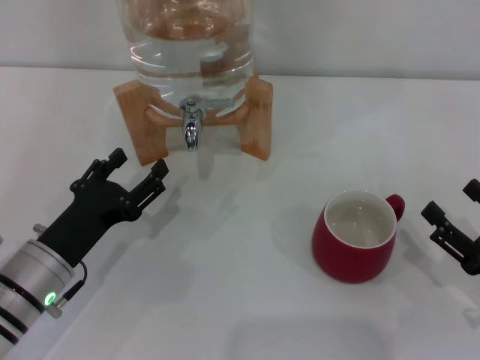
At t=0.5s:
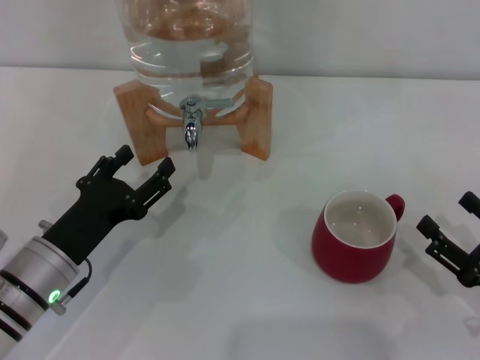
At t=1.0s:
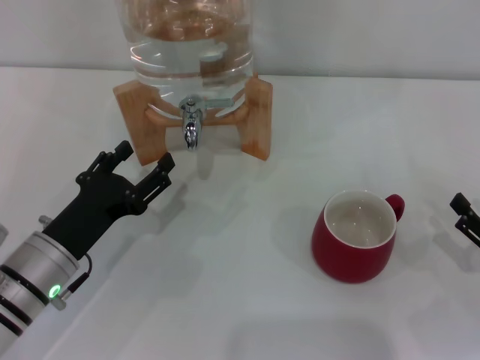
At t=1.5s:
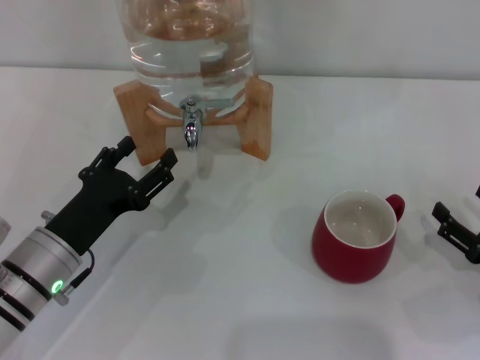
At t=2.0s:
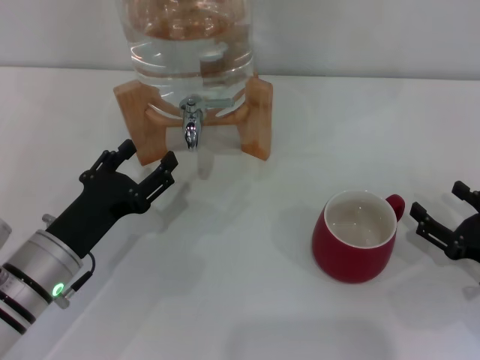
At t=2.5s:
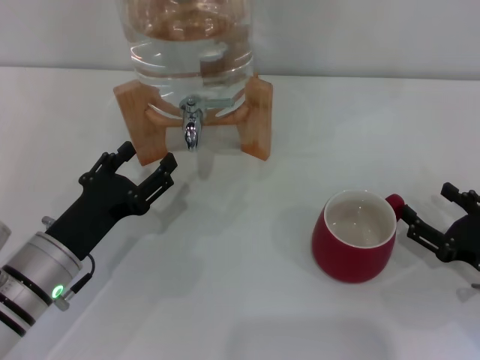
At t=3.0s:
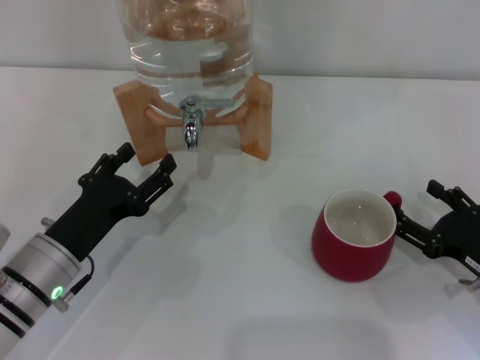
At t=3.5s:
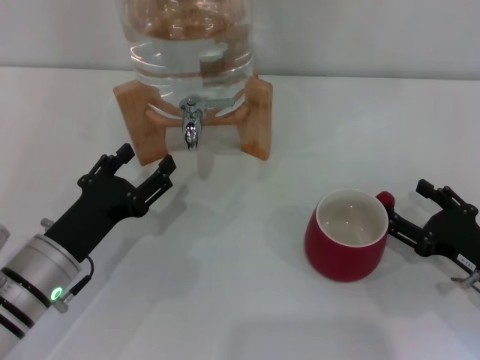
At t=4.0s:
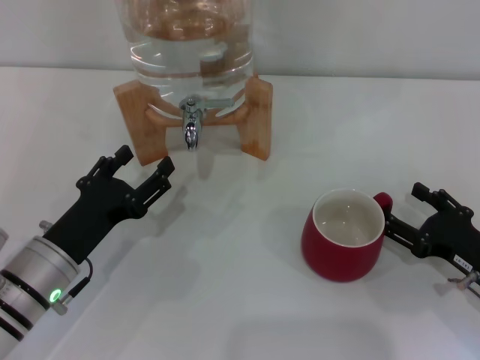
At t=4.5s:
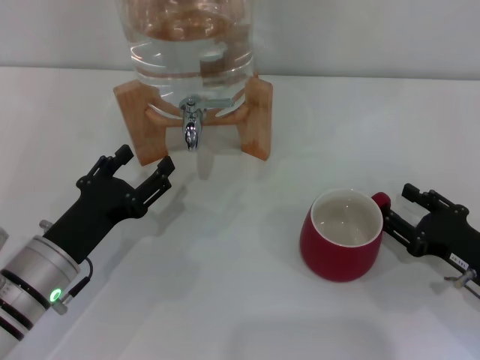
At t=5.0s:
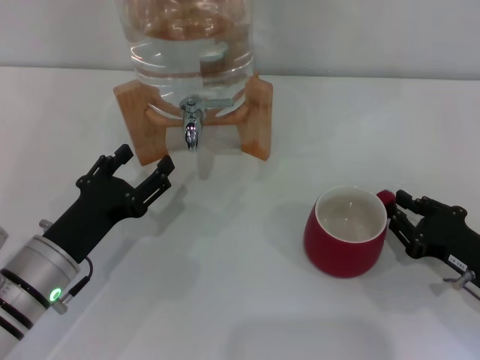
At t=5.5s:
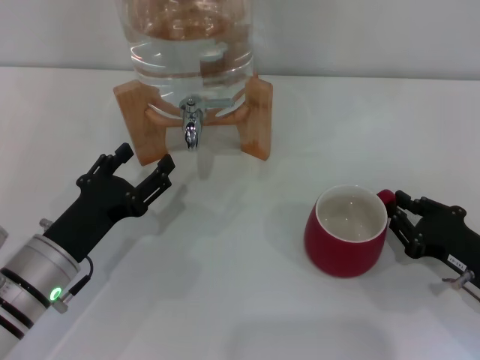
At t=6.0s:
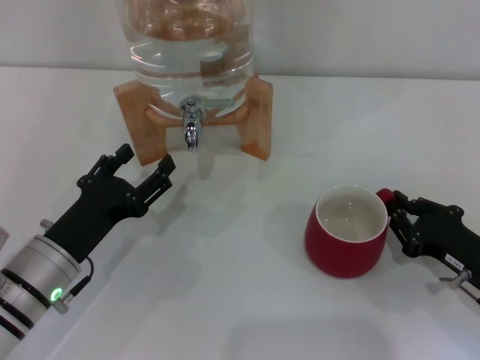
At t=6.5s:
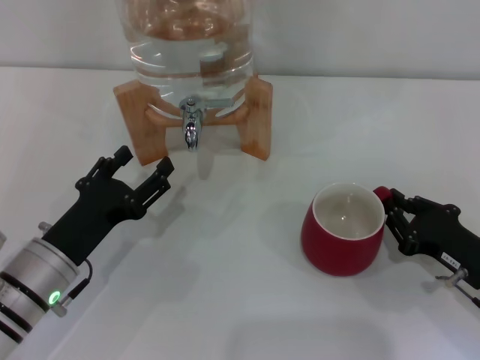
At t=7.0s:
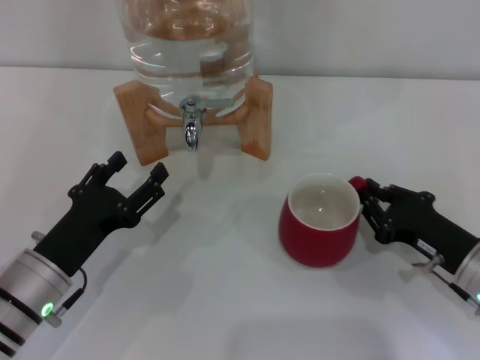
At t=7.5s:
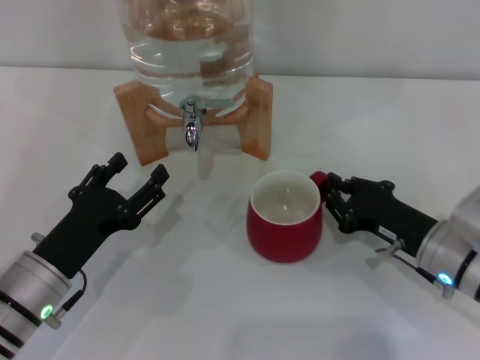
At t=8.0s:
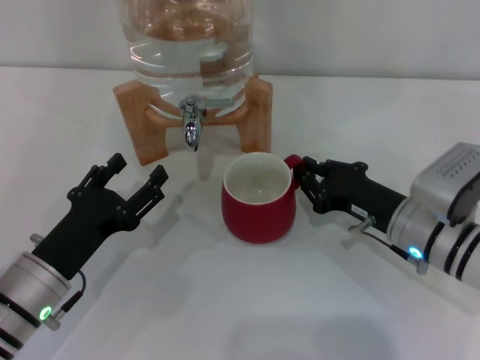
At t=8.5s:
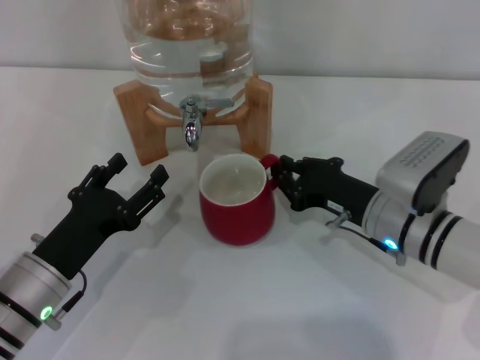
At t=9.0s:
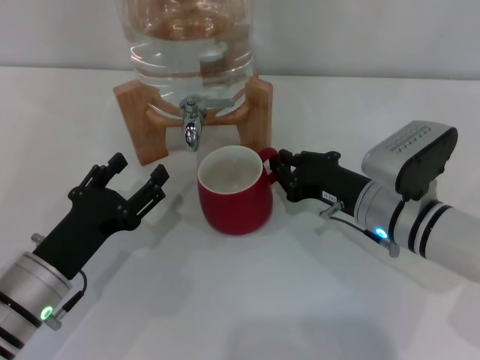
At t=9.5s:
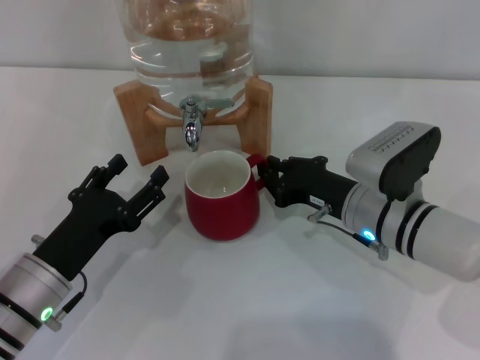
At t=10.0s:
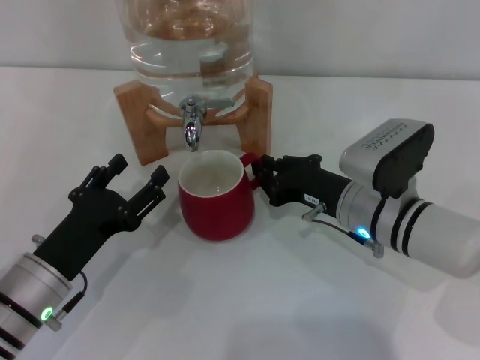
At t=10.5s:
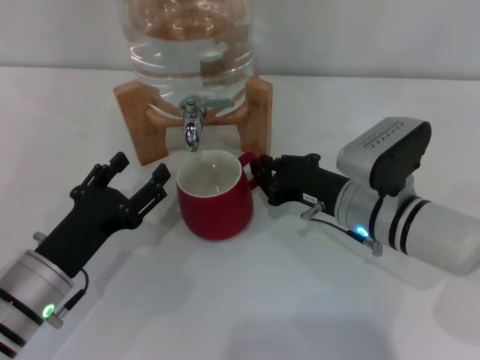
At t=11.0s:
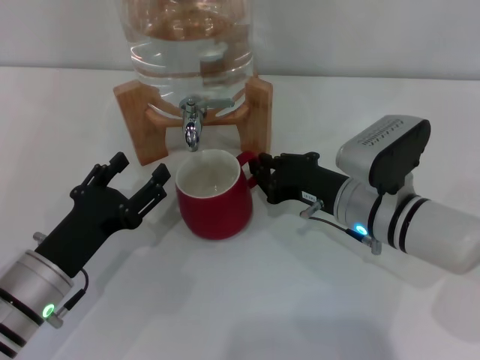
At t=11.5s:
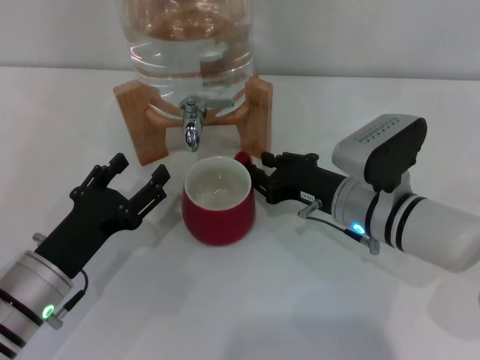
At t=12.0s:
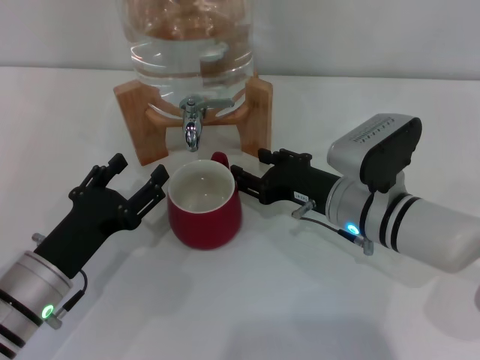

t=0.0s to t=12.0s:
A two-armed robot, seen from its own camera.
Task of the whole recording: the right gripper pick up the red cup and place it horizontally under the faucet, the left gripper turn on the faucet to fill the cup, and then turn off the faucet.
t=0.0s to t=4.0s: The grippers move only a little.
t=4.0s to t=6.0s: The right gripper closes up.
t=6.0s to t=8.0s: The right gripper shifts approximately 10 cm to the left and forward.
t=8.0s to t=10.0s: The right gripper shifts about 5 cm to the left.
t=10.0s to t=12.0s: The right gripper opens.

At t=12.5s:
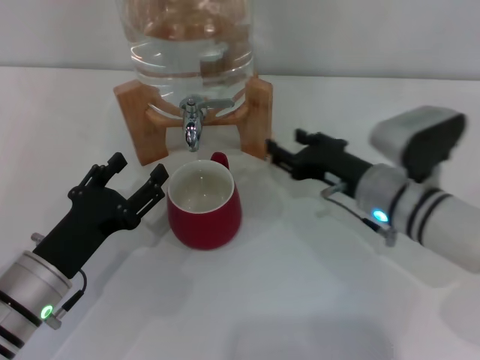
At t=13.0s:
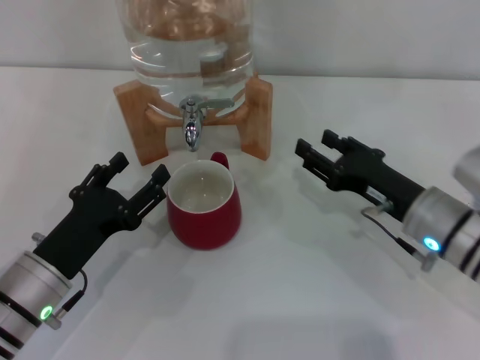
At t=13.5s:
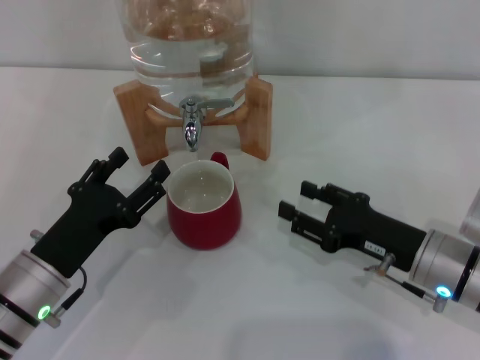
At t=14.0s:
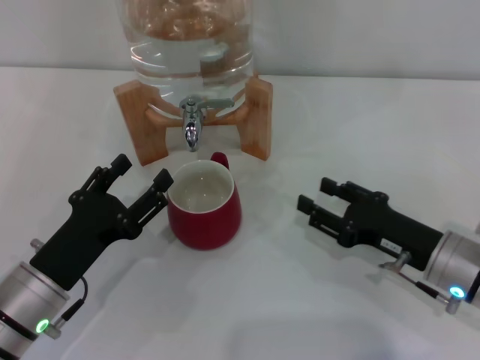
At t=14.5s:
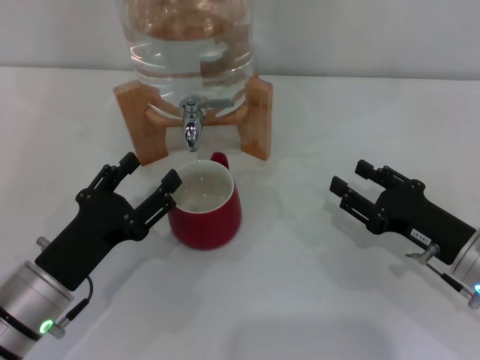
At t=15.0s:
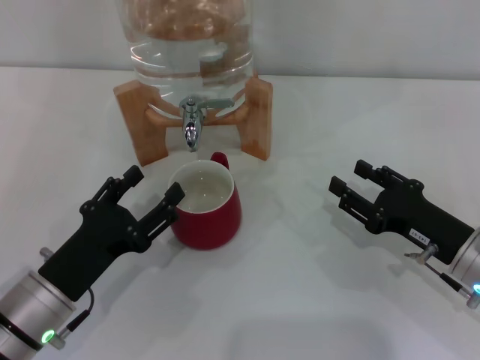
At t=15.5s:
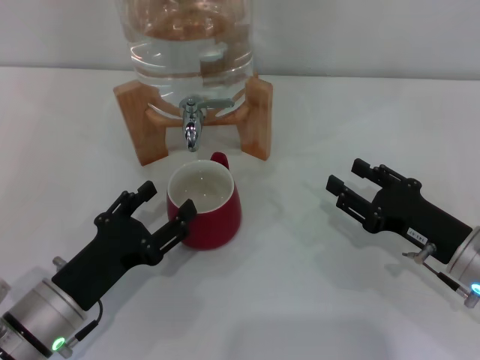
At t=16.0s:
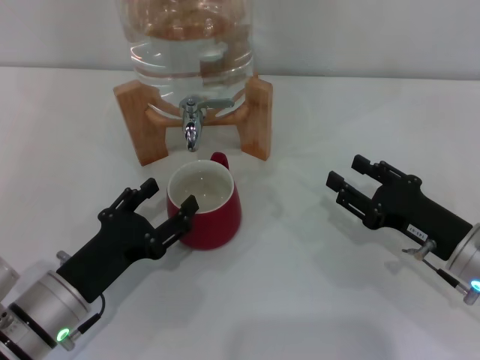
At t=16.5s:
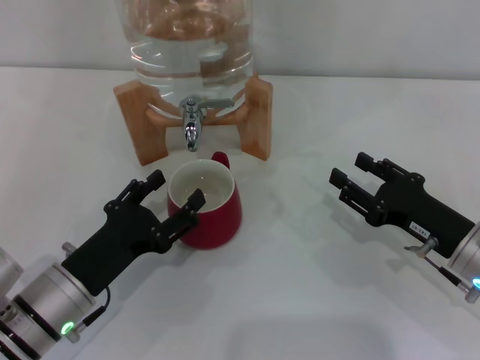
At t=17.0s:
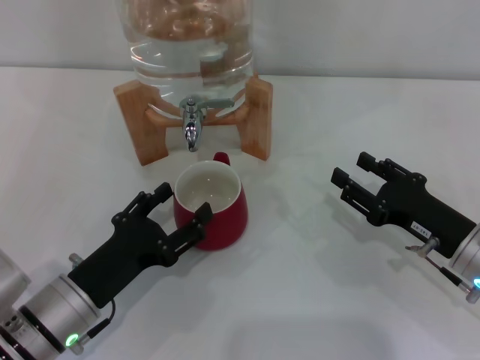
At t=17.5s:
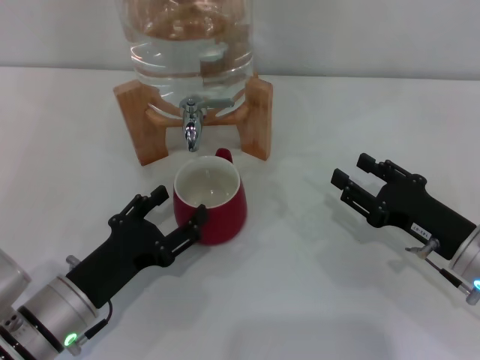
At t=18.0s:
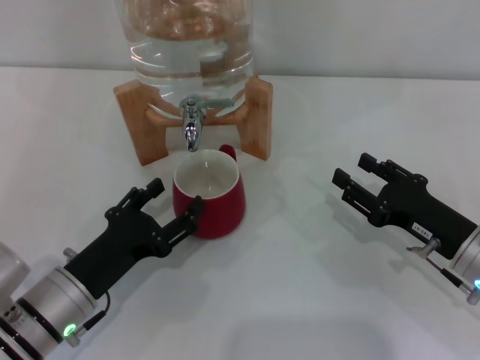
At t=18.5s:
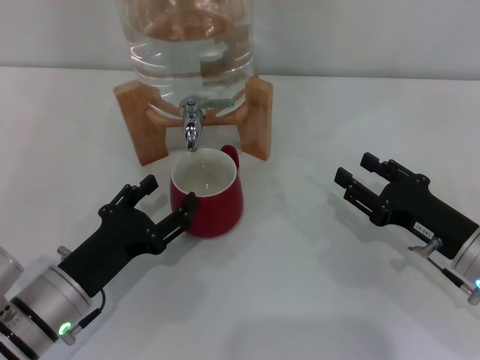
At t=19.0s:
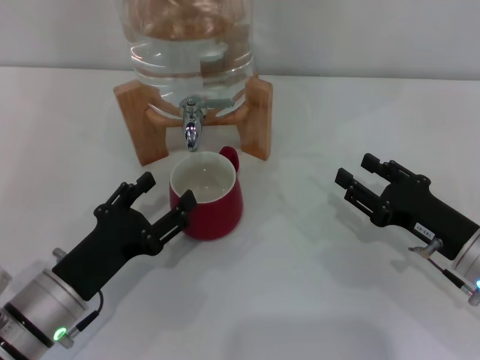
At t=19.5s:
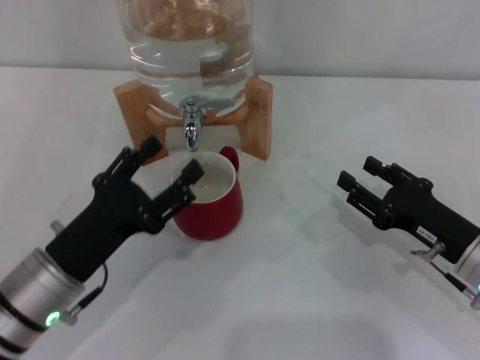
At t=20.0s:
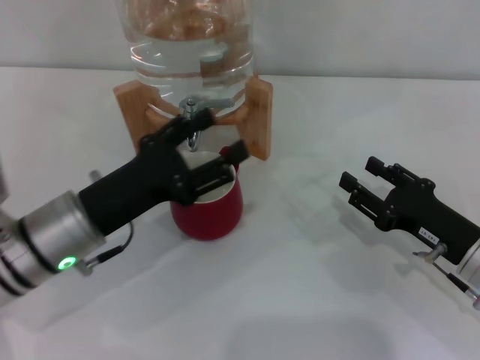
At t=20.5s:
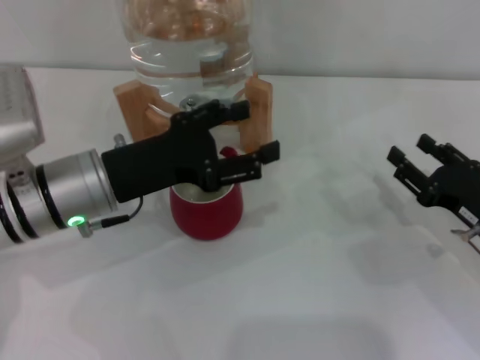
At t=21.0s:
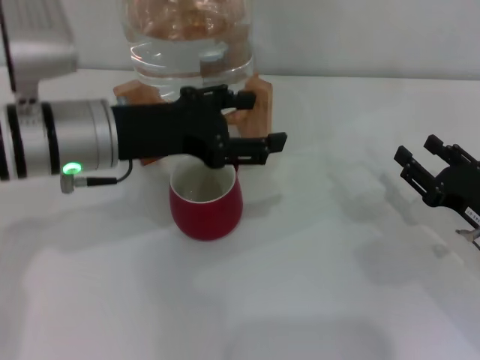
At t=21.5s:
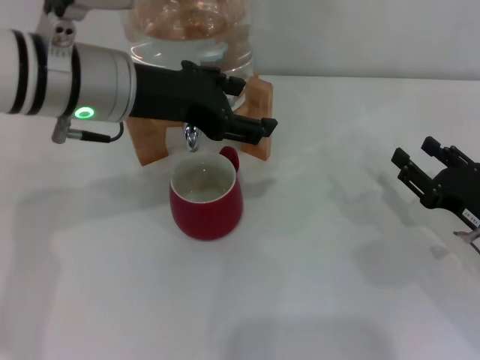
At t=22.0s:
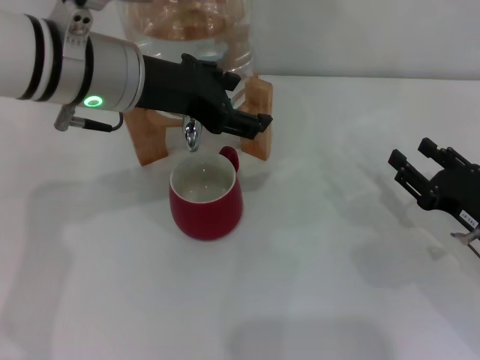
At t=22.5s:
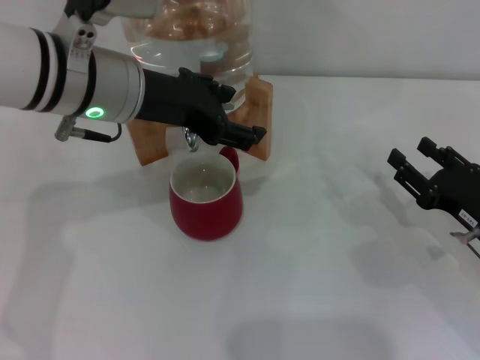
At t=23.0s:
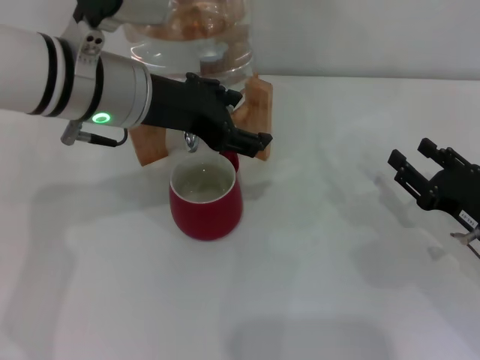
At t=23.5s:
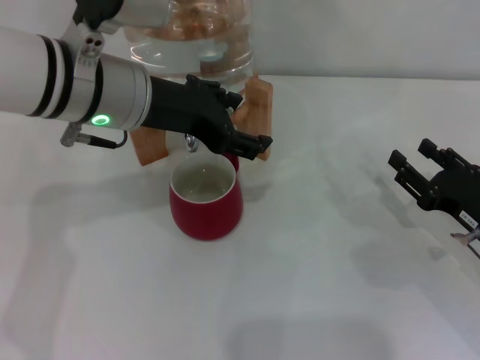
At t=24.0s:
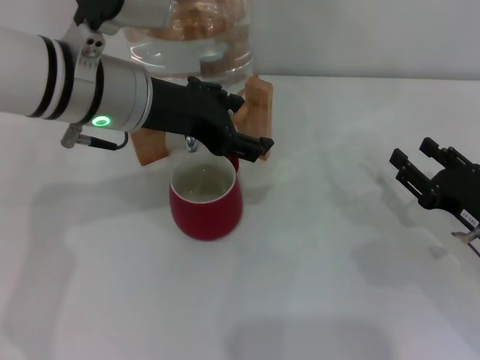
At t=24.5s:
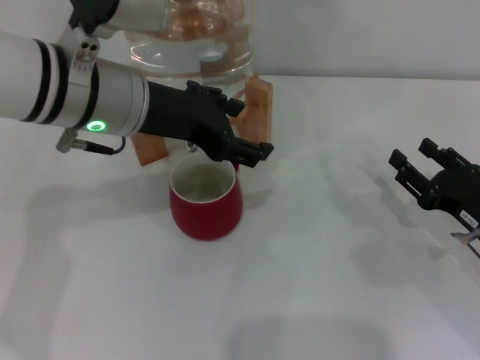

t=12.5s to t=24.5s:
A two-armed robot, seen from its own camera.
Task of the whole recording: the right gripper pick up the red cup and place it horizontally under the faucet, the left gripper turn on the faucet to fill the cup, and then turn off the faucet.
t=12.5s to t=14.5s: The right gripper moves to the right and backward, approximately 10 cm.
t=14.5s to t=16.5s: The grippers make only small movements.
t=16.5s to t=18.5s: Both grippers stay put.
t=18.5s to t=20.5s: The left gripper moves upward and forward, about 15 cm.
t=20.5s to t=22.5s: The left gripper shifts about 10 cm upward and forward.
t=22.5s to t=24.5s: Both grippers stay put.

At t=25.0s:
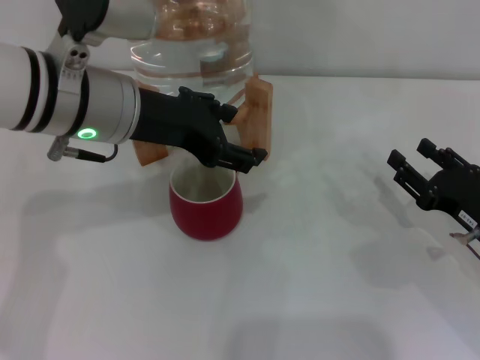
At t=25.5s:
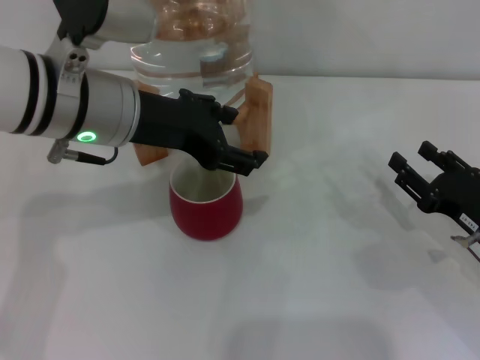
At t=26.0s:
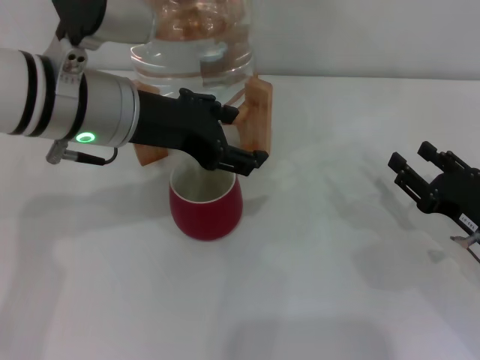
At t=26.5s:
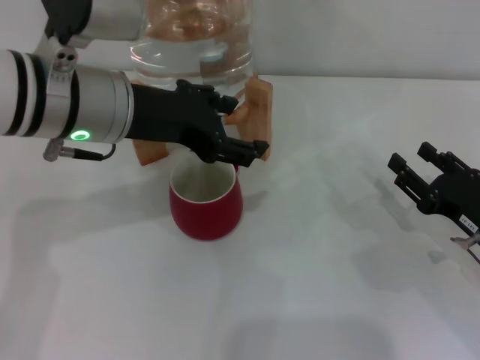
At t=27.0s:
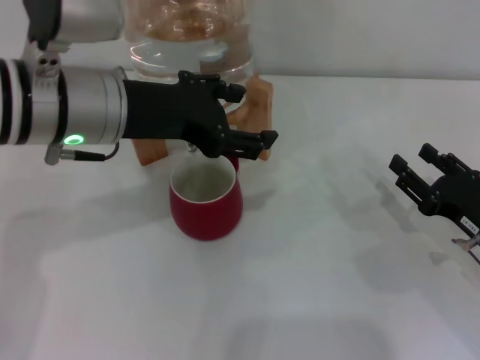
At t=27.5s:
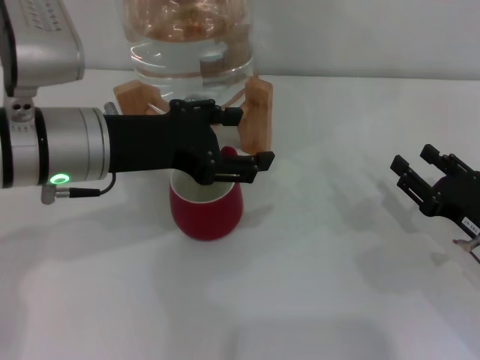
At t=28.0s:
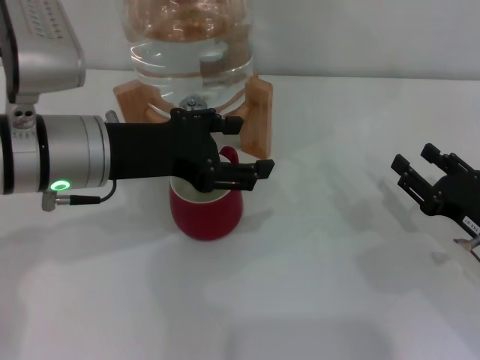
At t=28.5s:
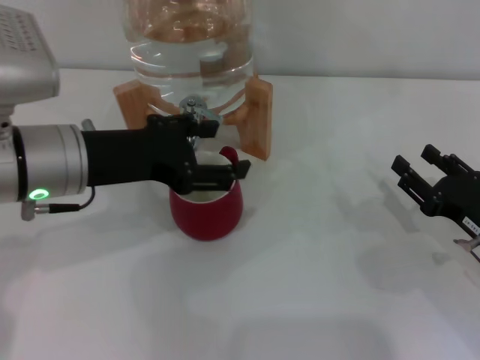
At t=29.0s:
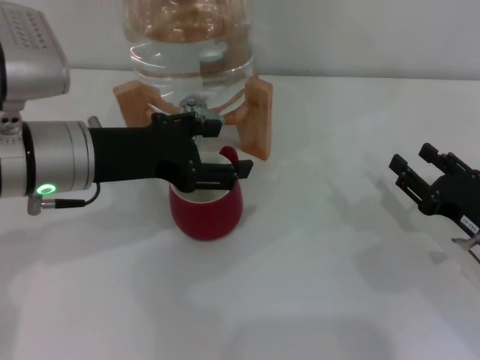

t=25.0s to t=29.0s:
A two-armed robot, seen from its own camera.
Task of the whole recording: the right gripper pick up the red cup and place it horizontally under the faucet, the left gripper turn on the faucet to fill the cup, and then turn off the faucet.
Step, t=25.0s to t=27.0s: Open the dispenser valve and fill the cup with water with the left gripper.
t=25.0s to t=27.0s: There are only small adjustments of the grippers.
t=27.0s to t=29.0s: The left gripper shifts by some 5 cm.
